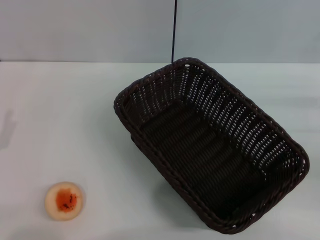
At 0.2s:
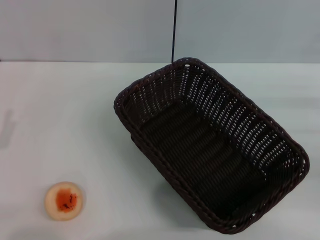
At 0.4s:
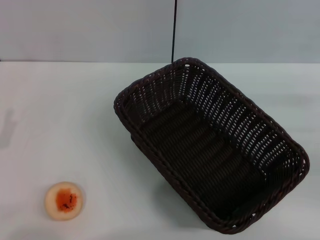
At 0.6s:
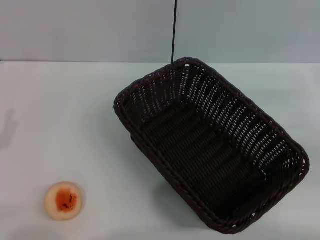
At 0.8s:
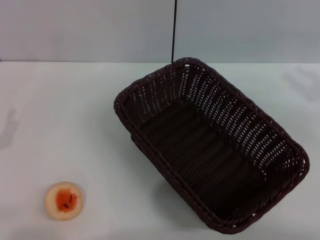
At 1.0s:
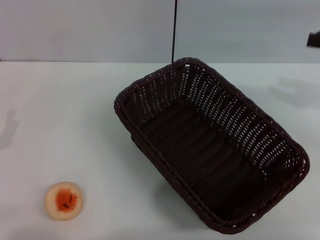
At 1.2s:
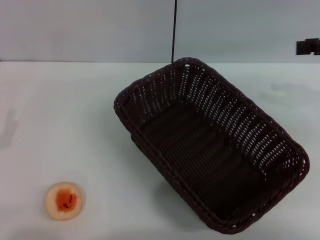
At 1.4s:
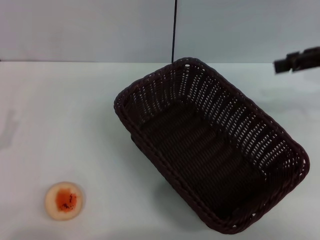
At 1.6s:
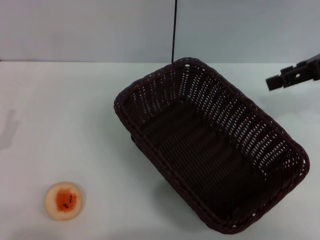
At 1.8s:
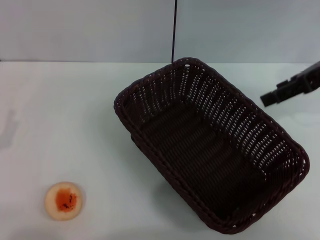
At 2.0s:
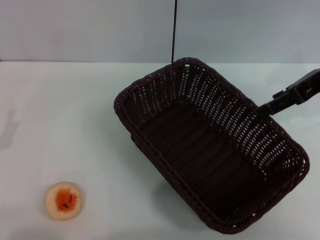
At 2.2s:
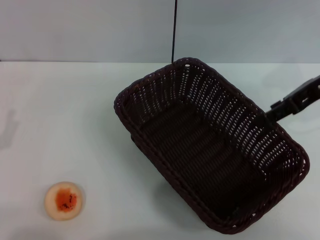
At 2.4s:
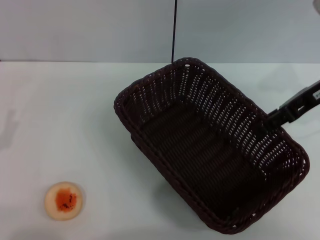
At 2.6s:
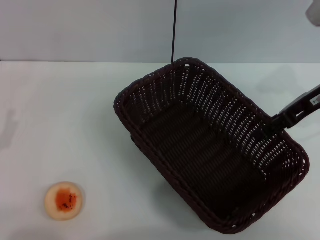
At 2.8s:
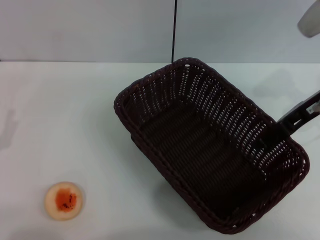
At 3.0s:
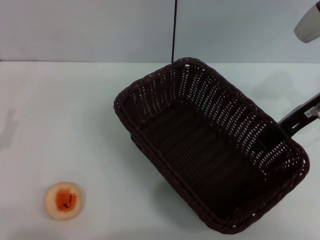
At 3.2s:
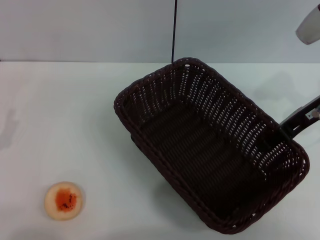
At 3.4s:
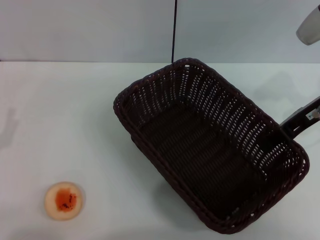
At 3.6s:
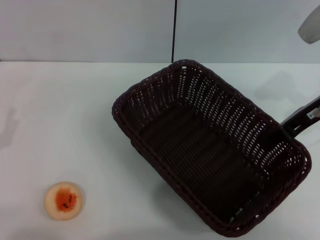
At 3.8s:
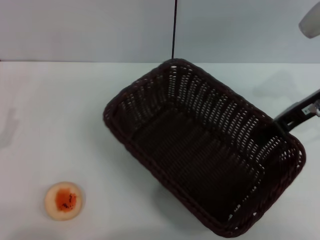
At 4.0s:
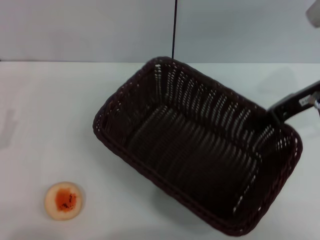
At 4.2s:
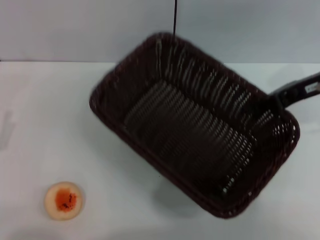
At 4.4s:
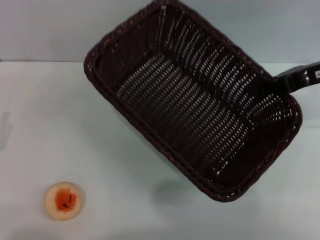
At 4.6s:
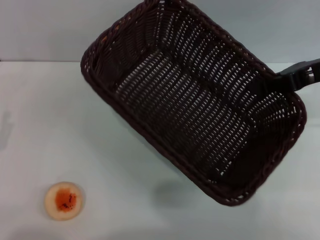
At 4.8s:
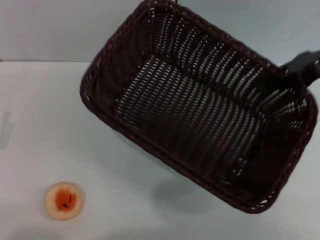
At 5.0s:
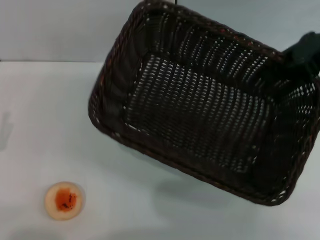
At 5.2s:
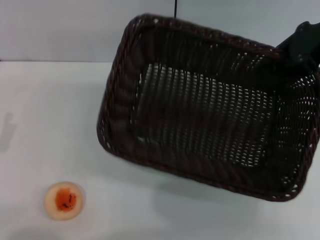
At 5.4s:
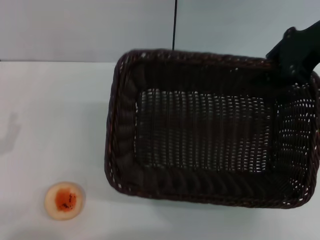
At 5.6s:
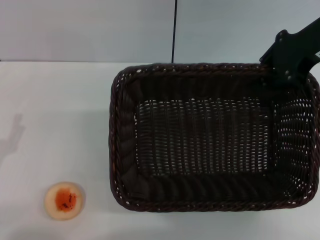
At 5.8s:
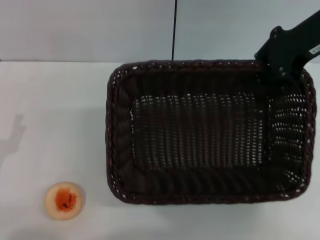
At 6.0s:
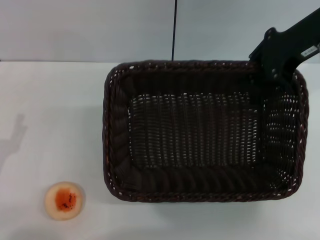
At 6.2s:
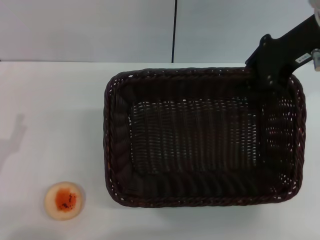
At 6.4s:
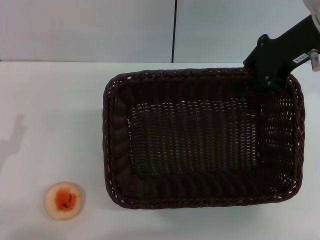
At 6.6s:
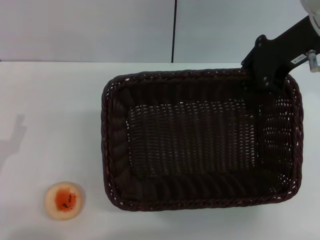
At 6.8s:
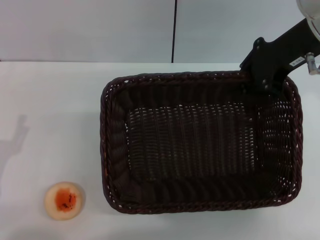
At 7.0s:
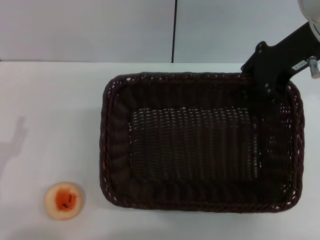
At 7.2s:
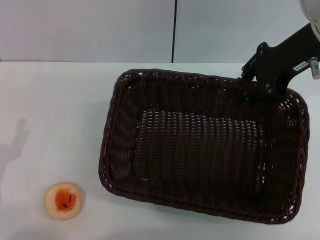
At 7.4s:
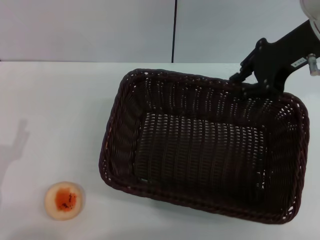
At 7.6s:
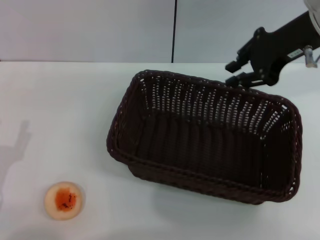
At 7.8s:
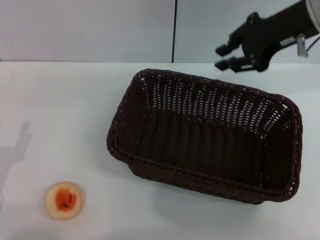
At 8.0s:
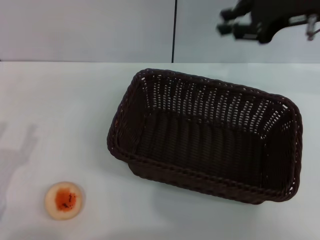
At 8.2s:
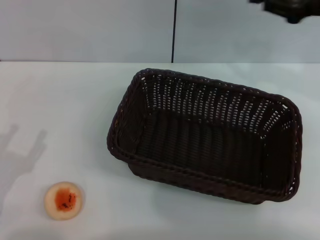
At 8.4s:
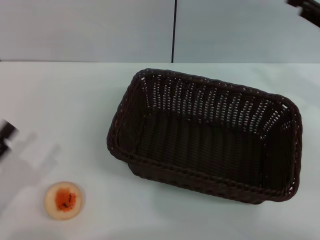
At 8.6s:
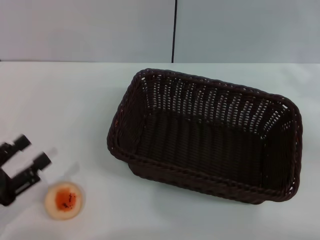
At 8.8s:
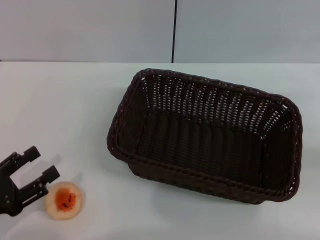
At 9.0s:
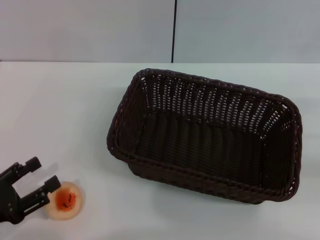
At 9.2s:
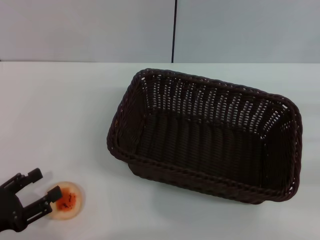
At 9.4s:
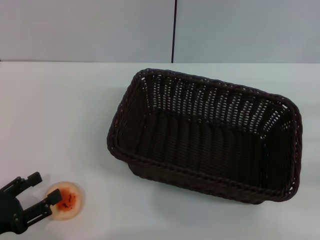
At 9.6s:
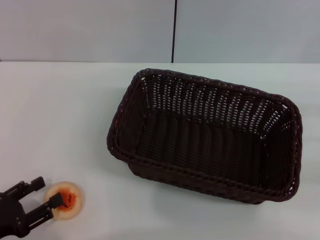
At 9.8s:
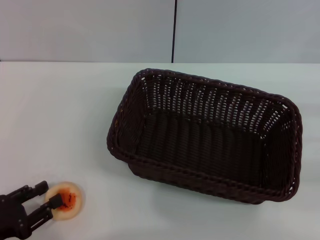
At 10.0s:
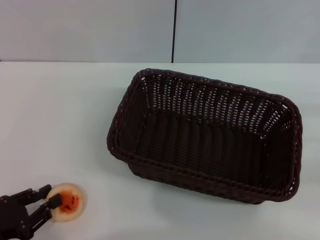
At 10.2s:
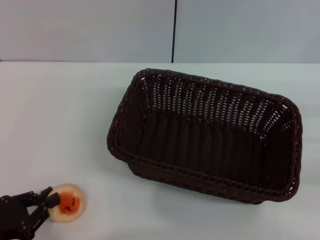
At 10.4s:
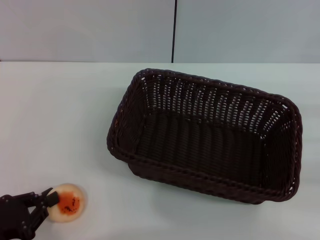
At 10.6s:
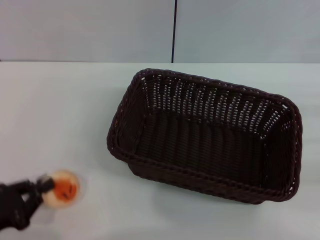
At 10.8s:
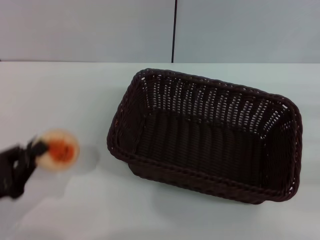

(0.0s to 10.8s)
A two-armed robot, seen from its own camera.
Step, 0.0s - 7.6s: Move the basket to the center of view with the right gripper.
Step, 7.8s - 10.6s: Pick up the egg yolk pastry with the left gripper.
0.0s - 1.6s: The right gripper heads upward, forward and to the left, covering roughly 20 cm, and opens its fingers.
1.6s - 3.0s: The right gripper moves downward, approximately 5 cm.
3.0s - 4.6s: The right gripper closes up.
4.6s - 6.2s: The right gripper moves to the left, some 5 cm.
6.2s - 7.8s: The grippers move only a little.
7.8s - 9.2s: The right gripper heads to the right, backward and downward, covering roughly 30 cm, and opens its fingers.
9.2s - 10.8s: The left gripper closes.

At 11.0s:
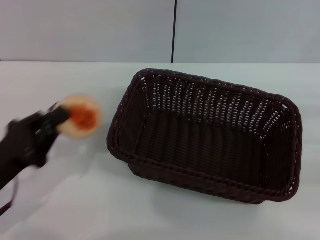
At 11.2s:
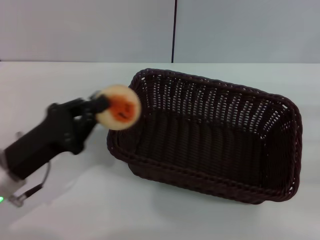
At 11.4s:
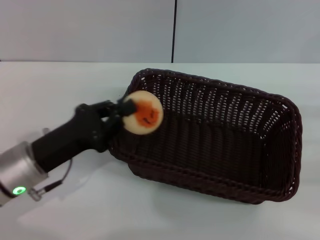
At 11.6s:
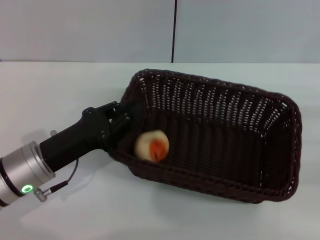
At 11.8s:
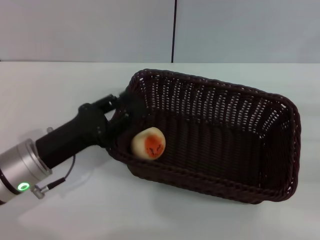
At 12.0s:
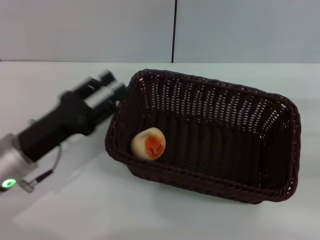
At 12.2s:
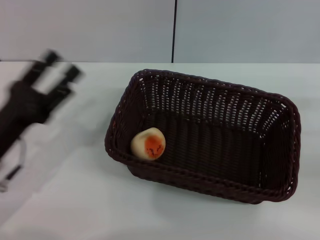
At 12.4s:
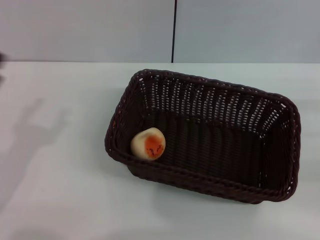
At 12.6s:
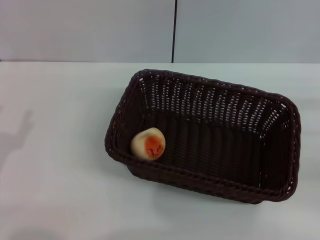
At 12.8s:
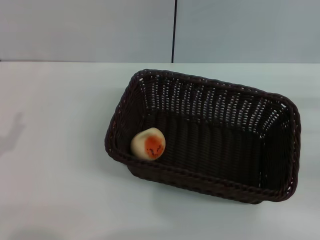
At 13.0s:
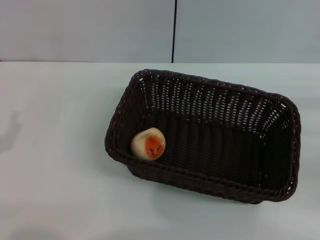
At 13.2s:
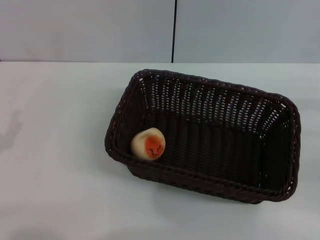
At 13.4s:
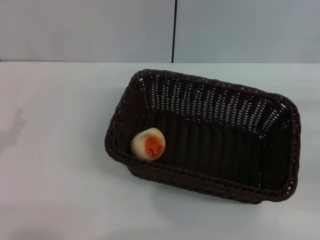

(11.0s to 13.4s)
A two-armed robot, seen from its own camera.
Step, 11.0s - 12.0s: Place the egg yolk pastry into the basket with the left gripper.
11.0s - 12.2s: The left gripper opens its fingers.
12.2s - 13.4s: The left gripper is displaced to the left by some 5 cm.
